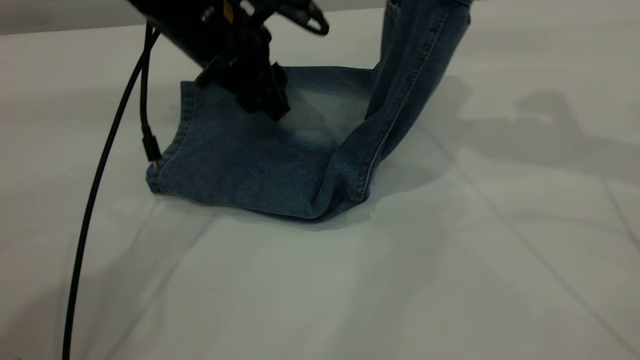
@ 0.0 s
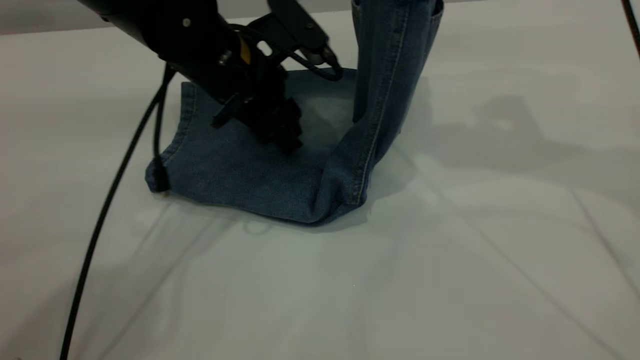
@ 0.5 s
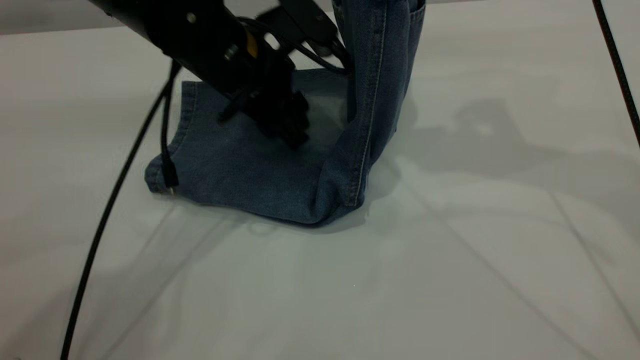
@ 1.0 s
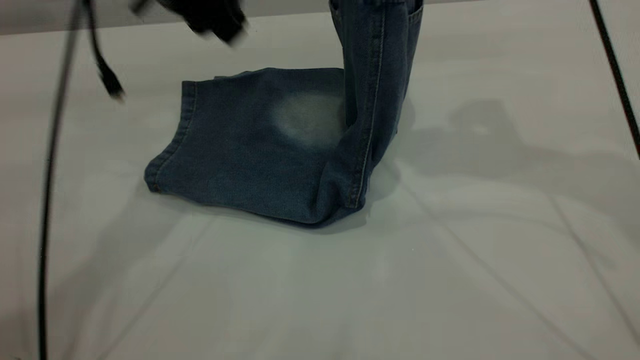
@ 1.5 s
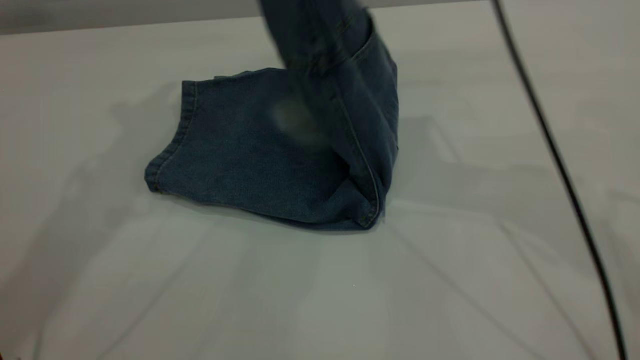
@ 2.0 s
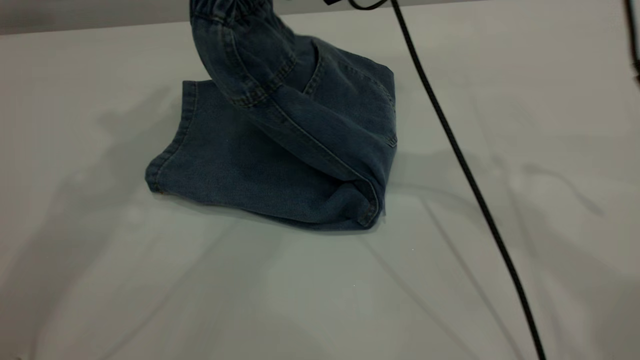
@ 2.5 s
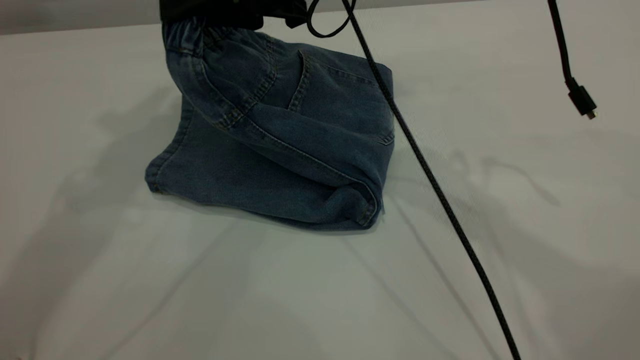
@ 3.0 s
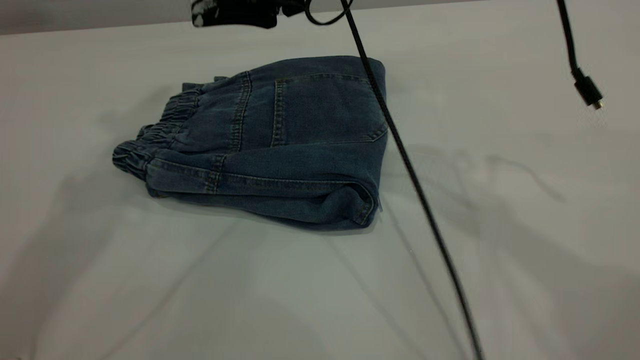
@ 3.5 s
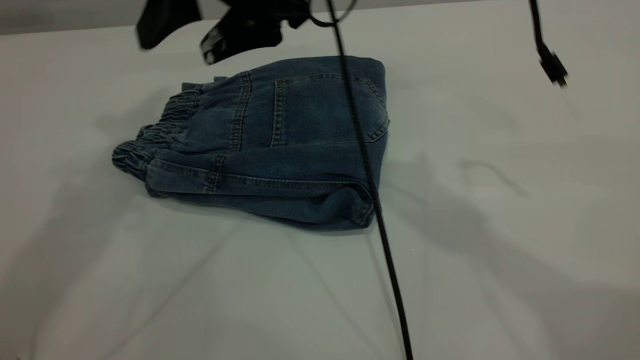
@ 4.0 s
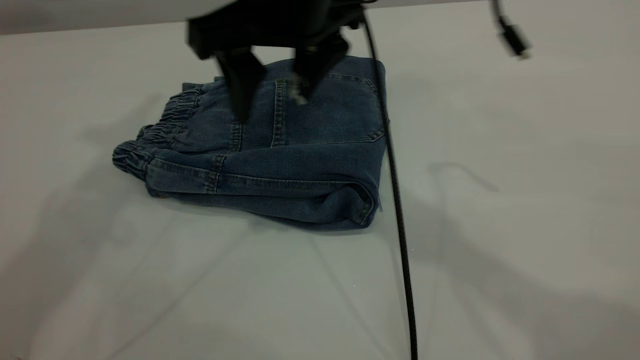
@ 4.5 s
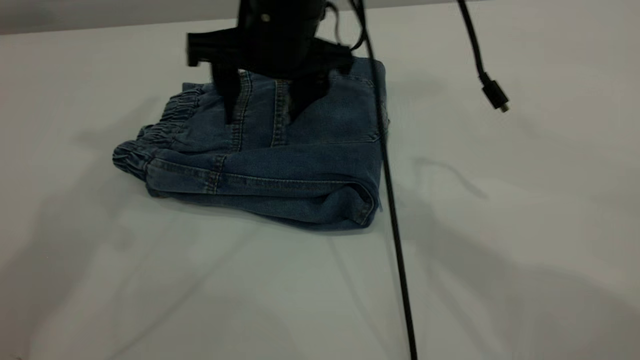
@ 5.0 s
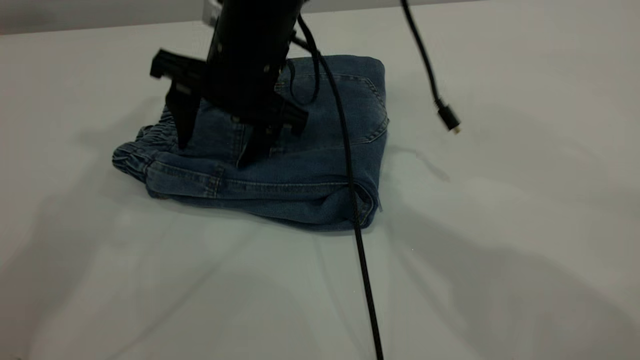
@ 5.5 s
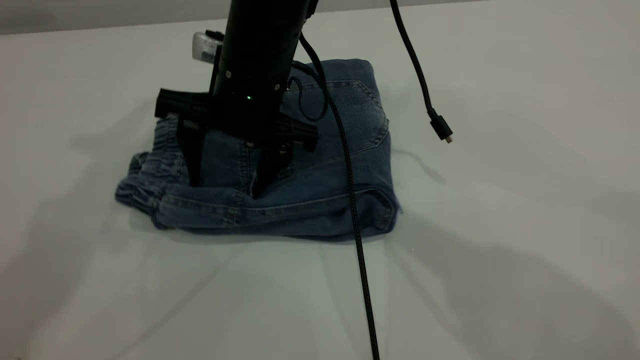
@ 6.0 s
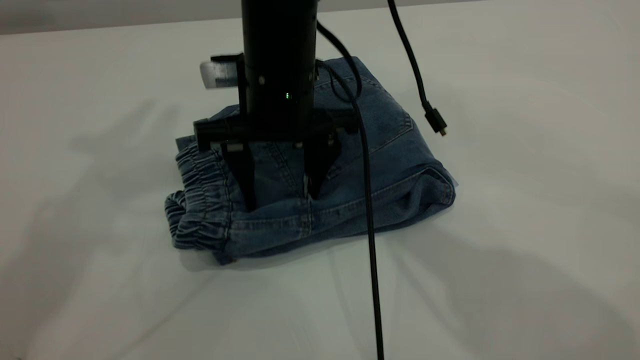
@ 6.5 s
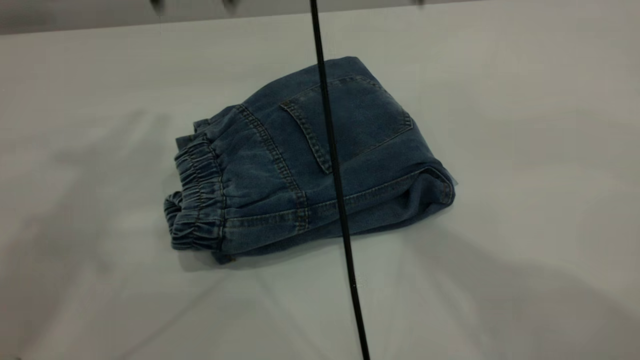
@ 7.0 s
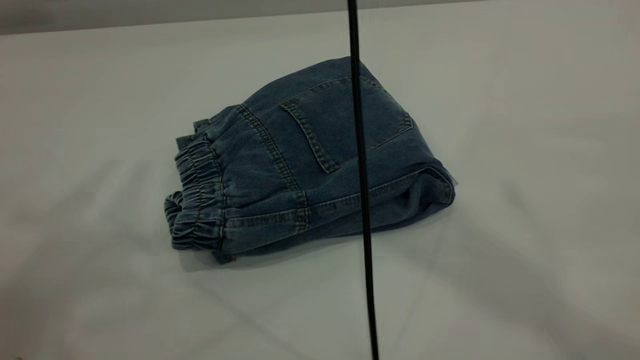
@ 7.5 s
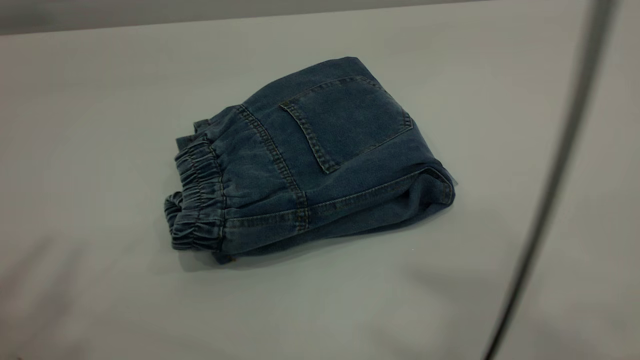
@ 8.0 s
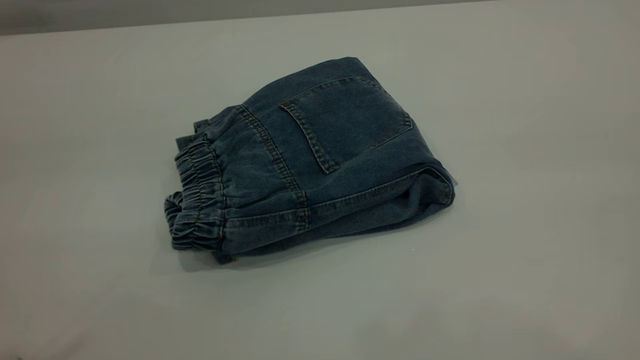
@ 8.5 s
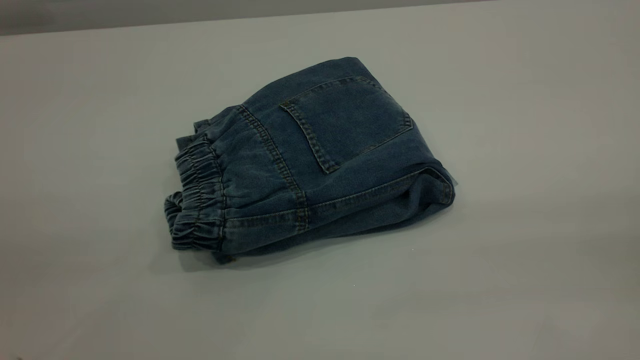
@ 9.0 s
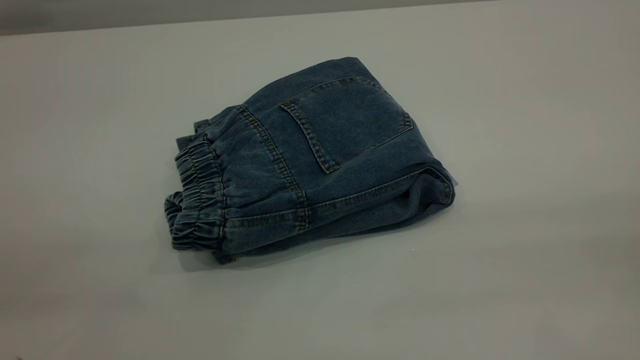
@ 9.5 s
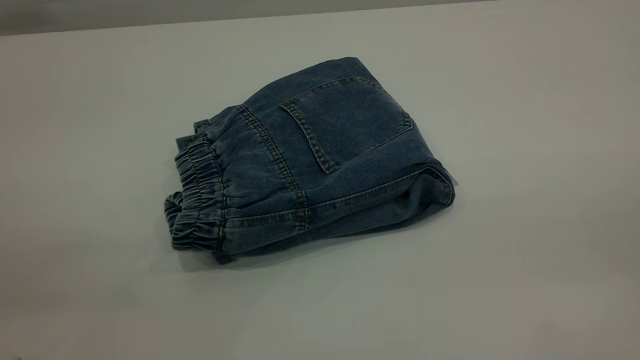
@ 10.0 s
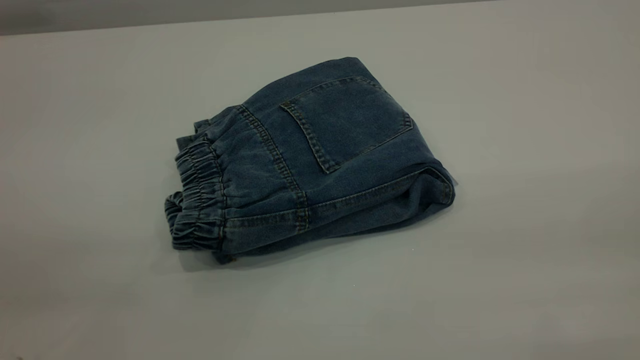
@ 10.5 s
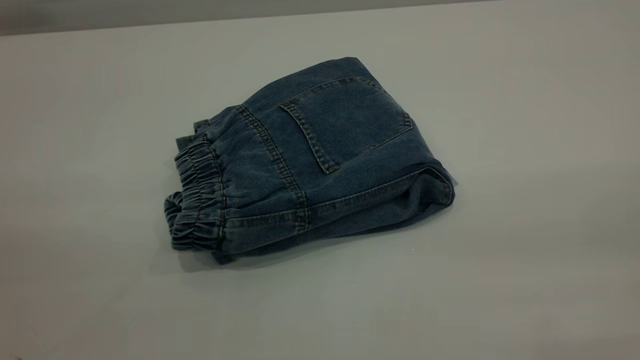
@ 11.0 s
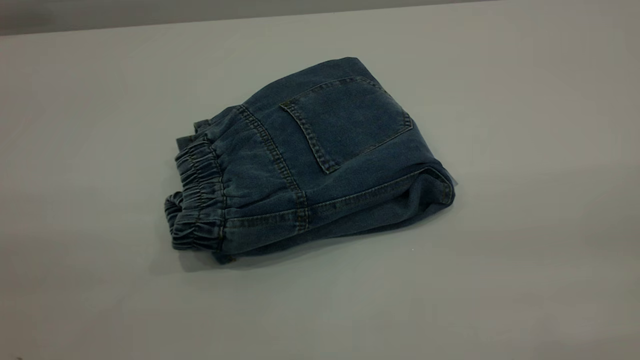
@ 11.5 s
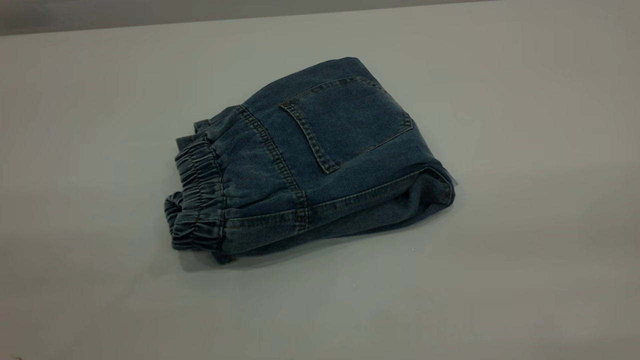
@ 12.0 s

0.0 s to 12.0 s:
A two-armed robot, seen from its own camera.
Step, 0.0 to 3.5 s: Fold your pants from right to left.
0.0 to 2.0 s: The left gripper moves upward and to the left, about 25 cm; the right gripper is displaced to the left by roughly 15 cm.
2.0 to 4.0 s: The right gripper travels to the left by about 10 cm, and opens its fingers.
4.0 to 6.0 s: The right gripper goes roughly 10 cm downward. The left gripper changes place by some 5 cm.
6.0 to 8.0 s: The left gripper shifts about 20 cm backward. The right gripper moves upward, backward and to the right, approximately 50 cm.
8.0 to 10.0 s: The right gripper goes roughly 30 cm downward, to the right and backward.
